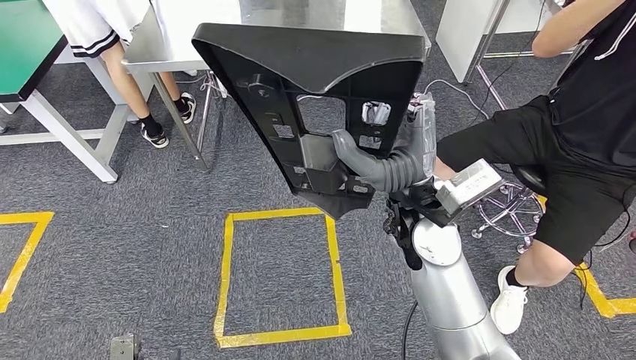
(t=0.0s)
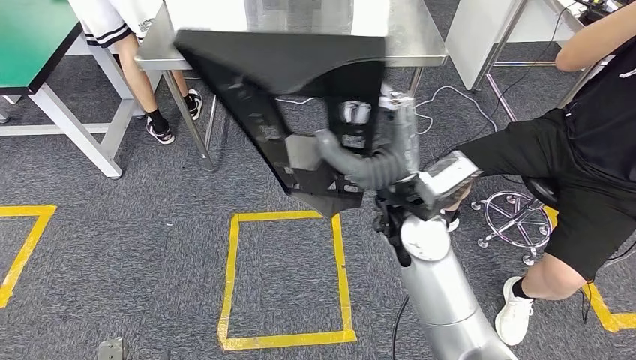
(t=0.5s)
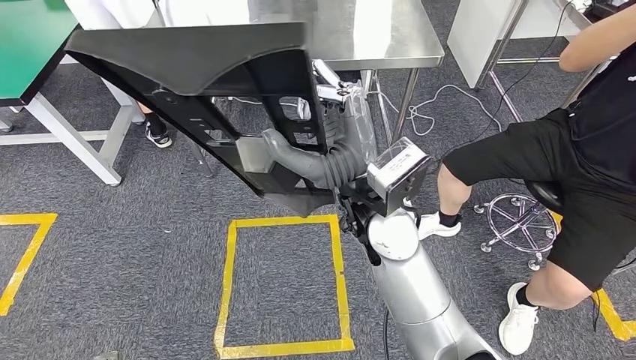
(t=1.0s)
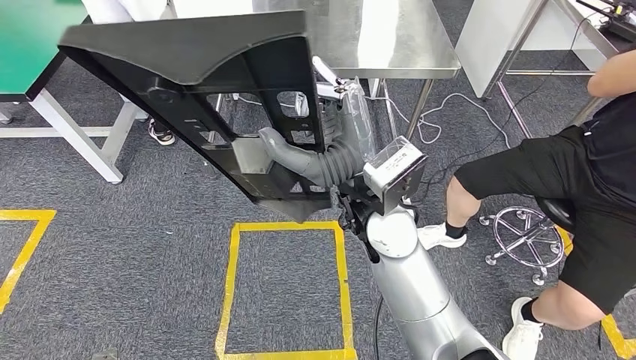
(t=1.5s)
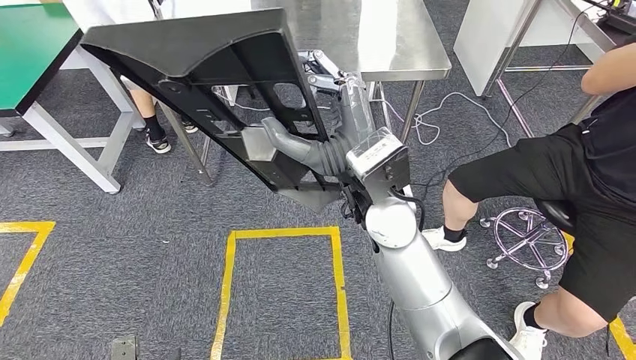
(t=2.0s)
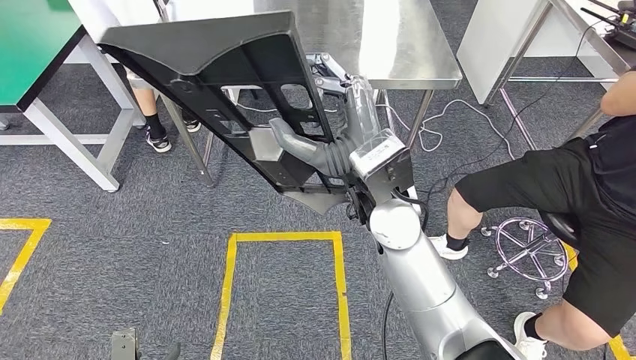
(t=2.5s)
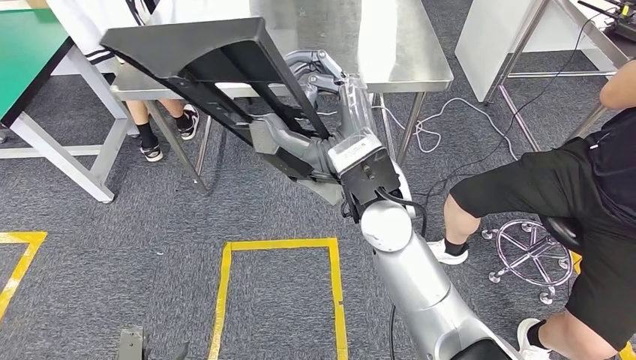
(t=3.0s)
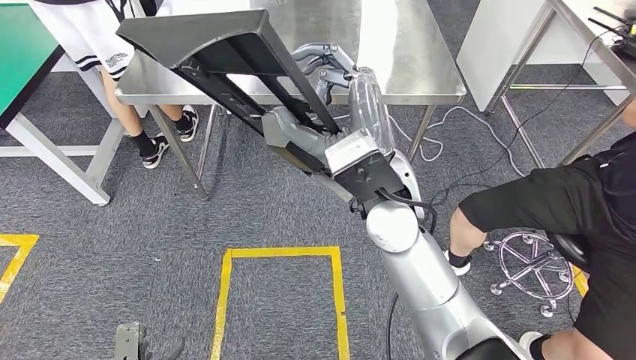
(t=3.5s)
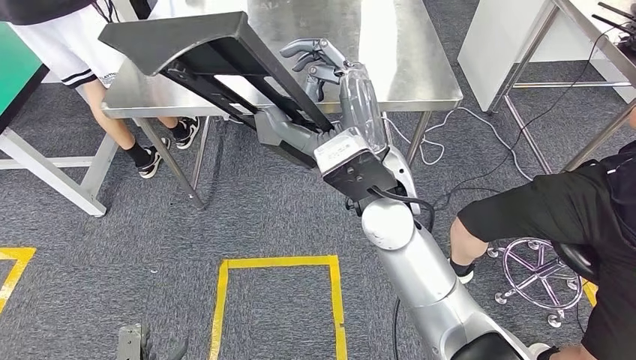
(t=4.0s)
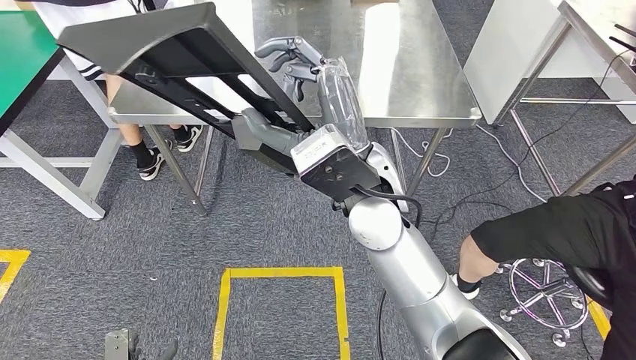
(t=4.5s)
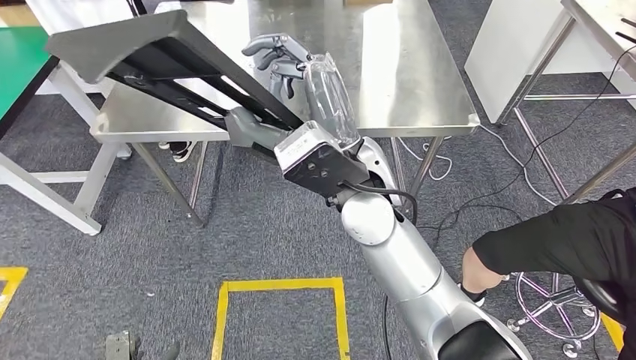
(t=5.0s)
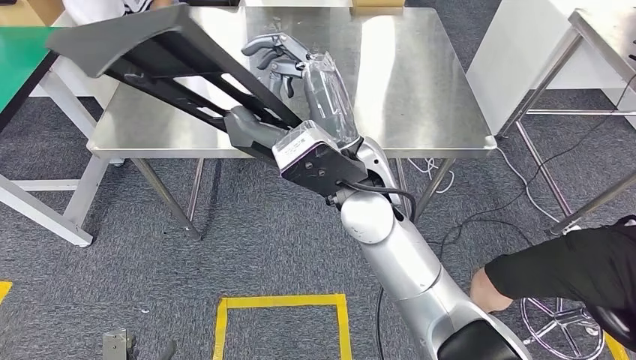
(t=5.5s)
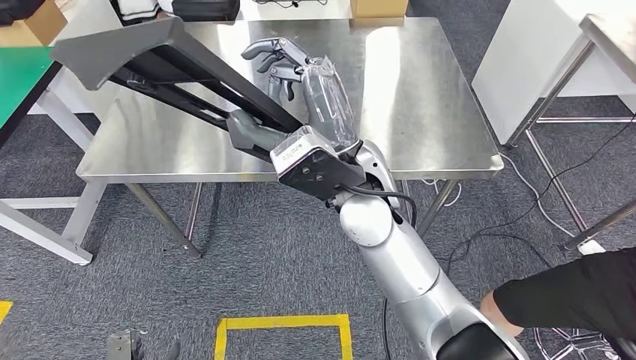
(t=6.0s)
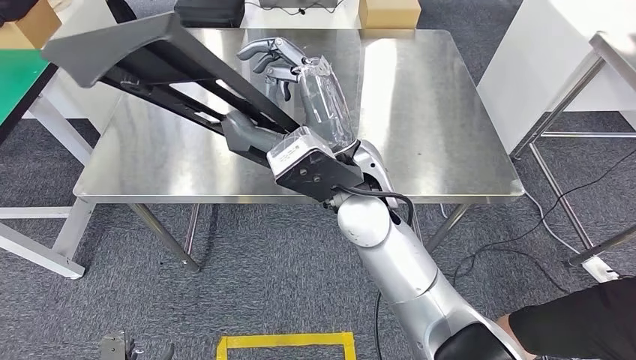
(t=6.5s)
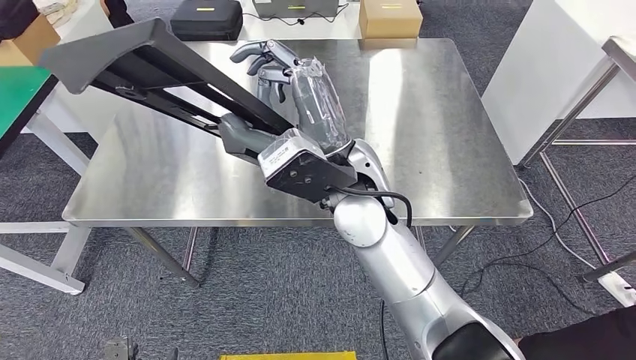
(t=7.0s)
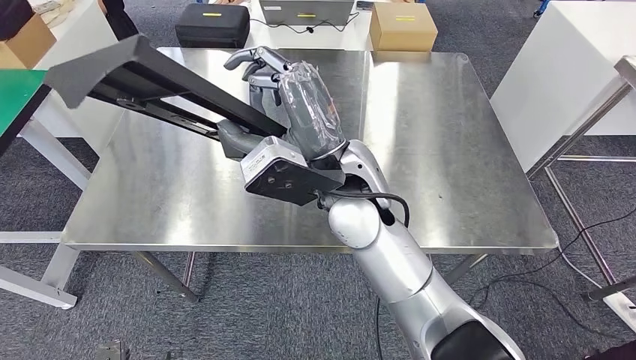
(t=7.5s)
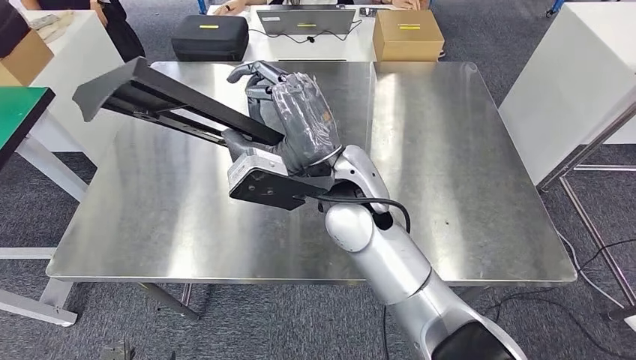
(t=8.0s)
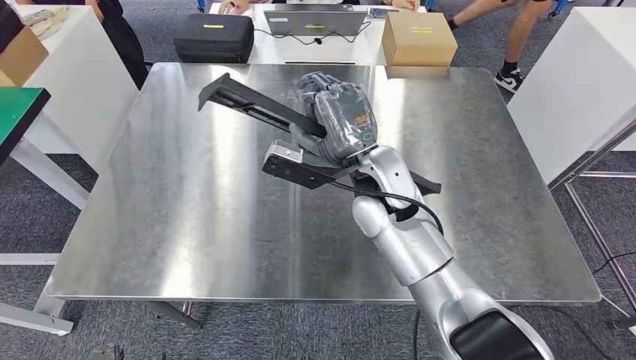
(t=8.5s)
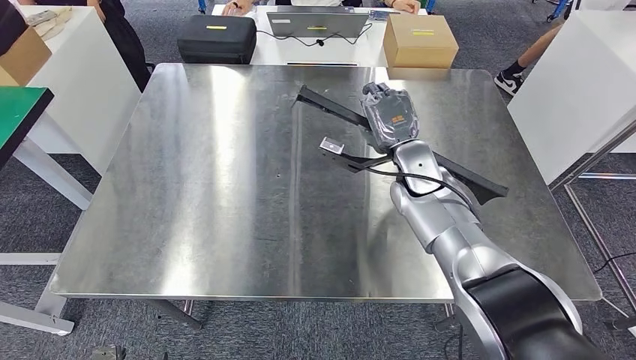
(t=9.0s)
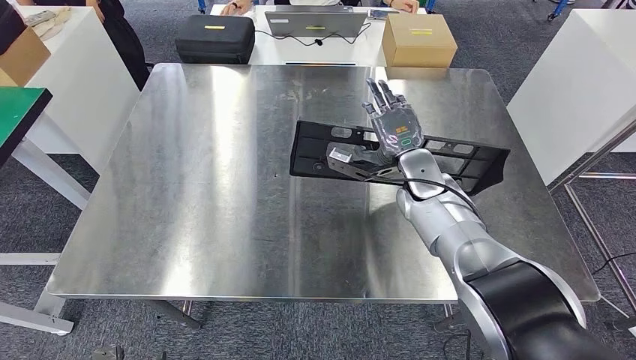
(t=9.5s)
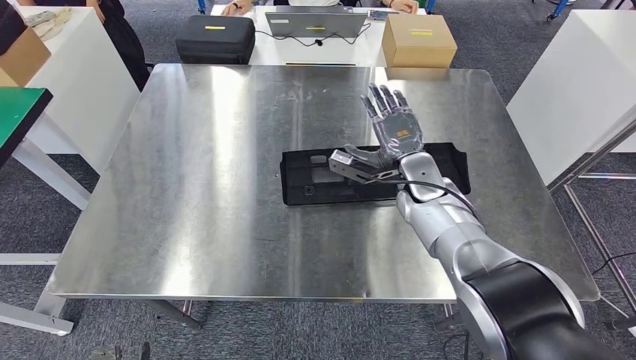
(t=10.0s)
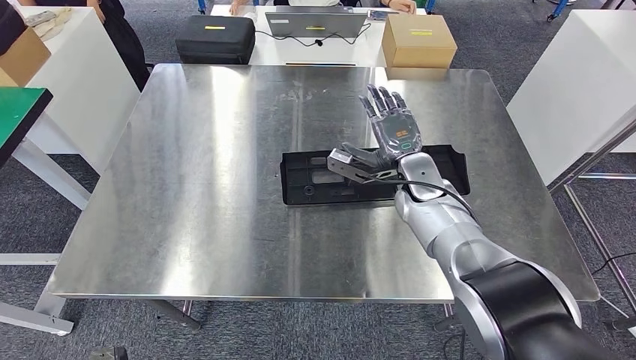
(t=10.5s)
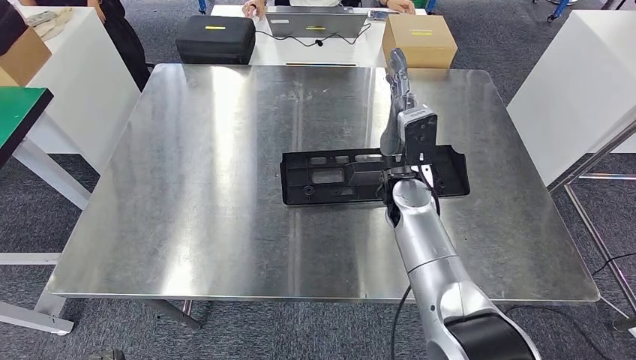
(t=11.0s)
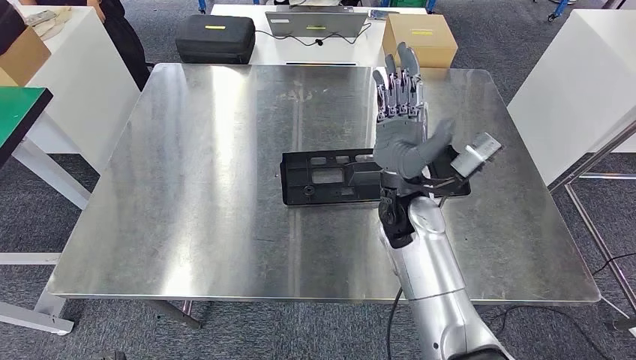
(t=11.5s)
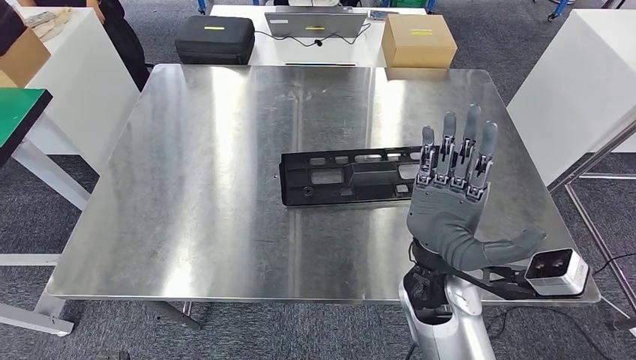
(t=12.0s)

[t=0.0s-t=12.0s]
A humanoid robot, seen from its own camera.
t=10.0s to t=12.0s: The right hand travels backward by roughly 20 cm.

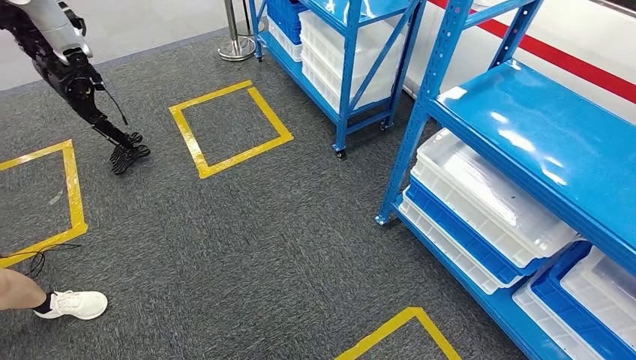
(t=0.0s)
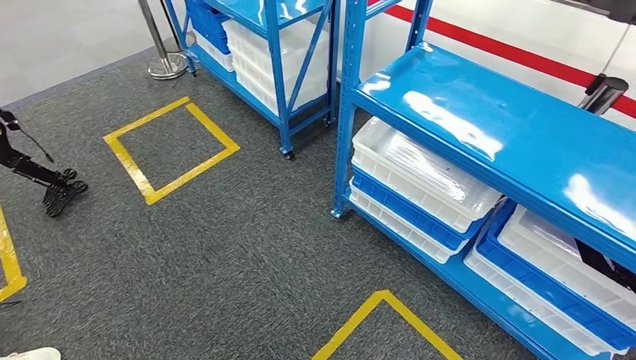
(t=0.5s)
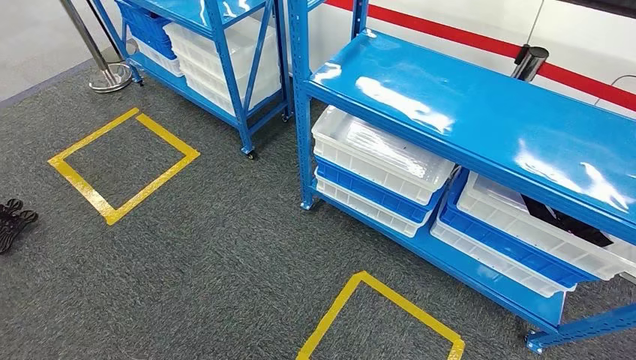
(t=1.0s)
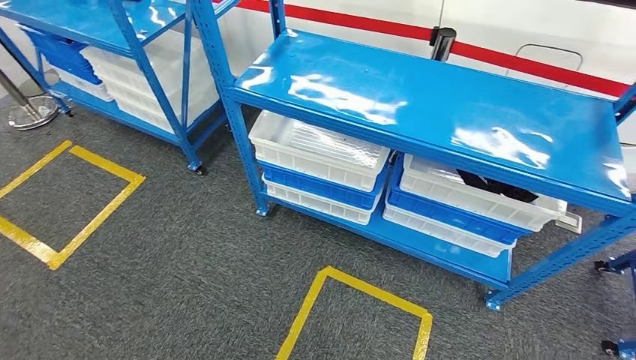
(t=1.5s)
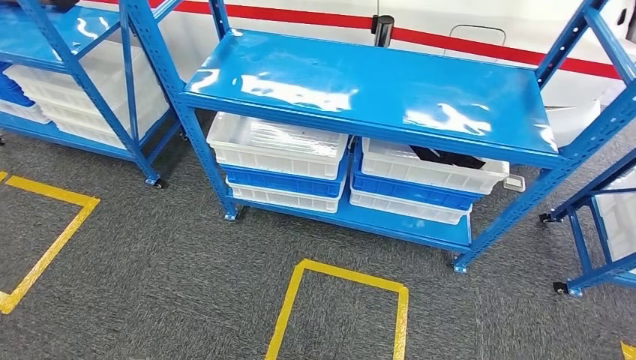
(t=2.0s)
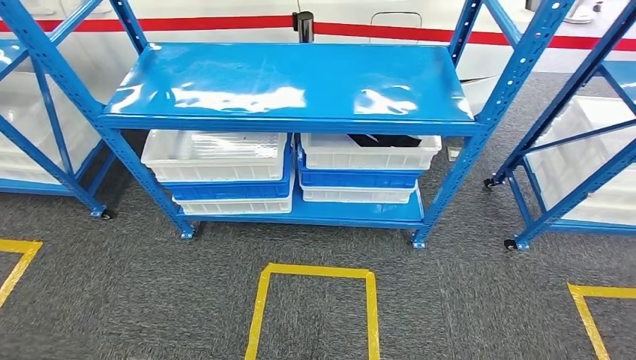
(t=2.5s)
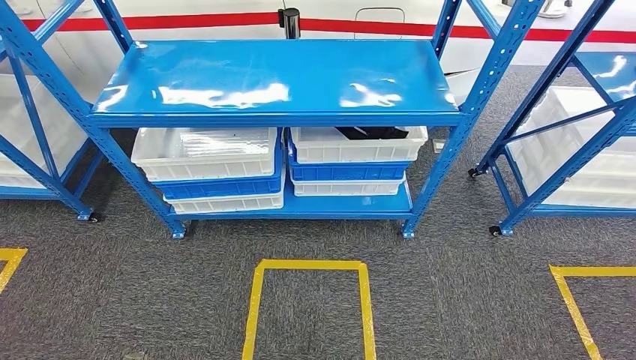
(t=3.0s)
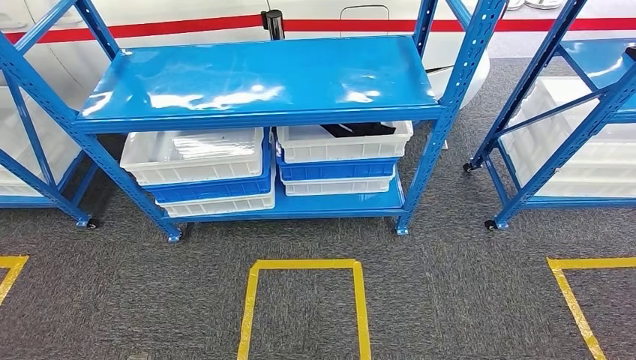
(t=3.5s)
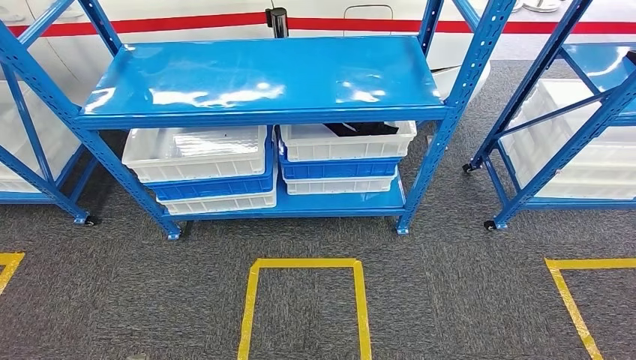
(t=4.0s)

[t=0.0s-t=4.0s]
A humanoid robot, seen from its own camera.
Step, t=0.0s to t=4.0s: Move to the initial position of the shelf.
